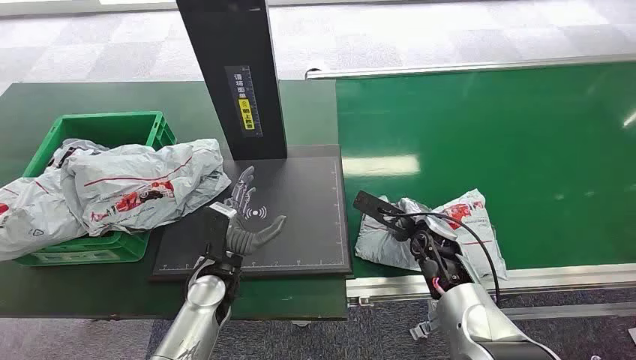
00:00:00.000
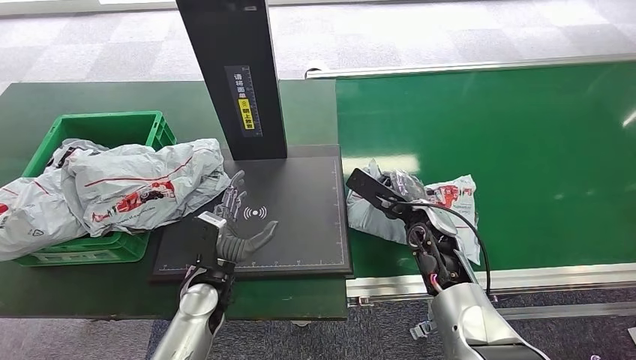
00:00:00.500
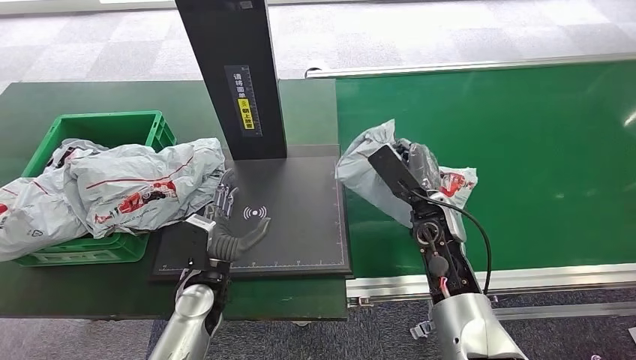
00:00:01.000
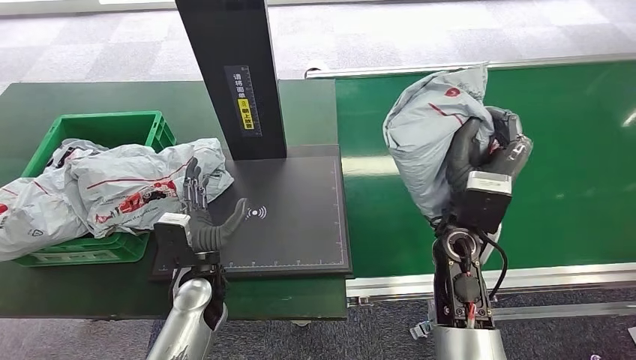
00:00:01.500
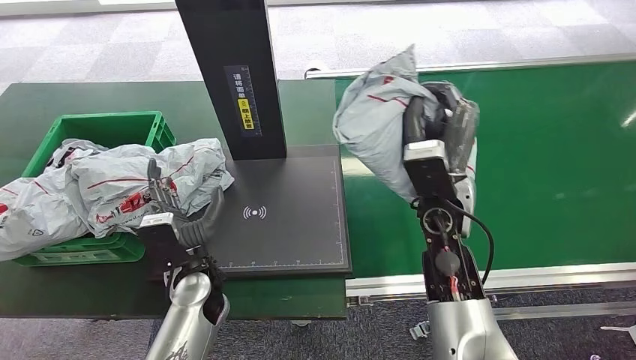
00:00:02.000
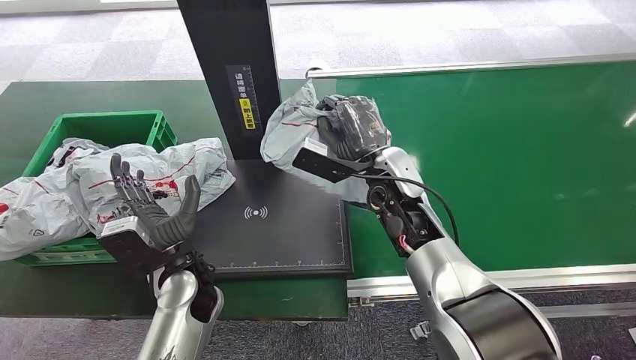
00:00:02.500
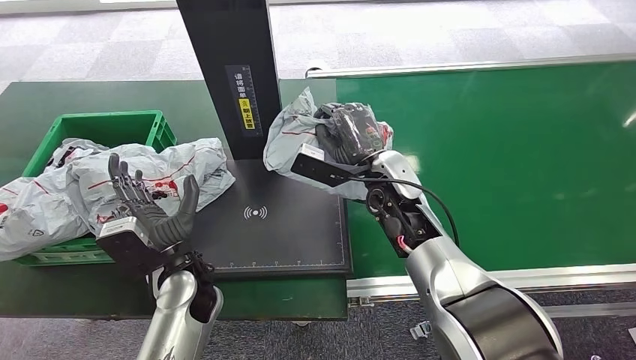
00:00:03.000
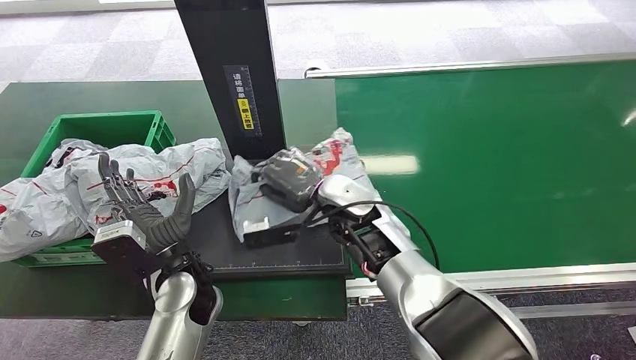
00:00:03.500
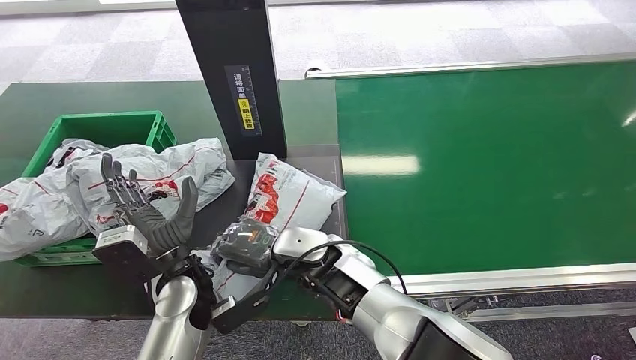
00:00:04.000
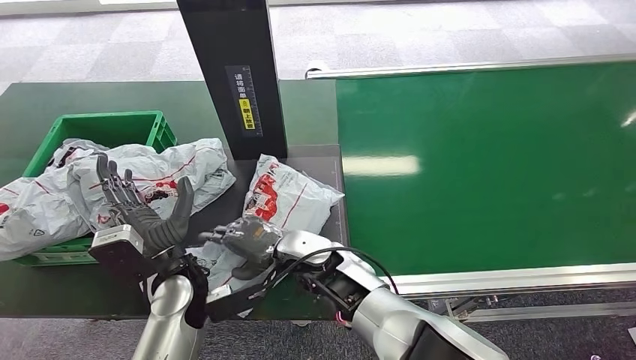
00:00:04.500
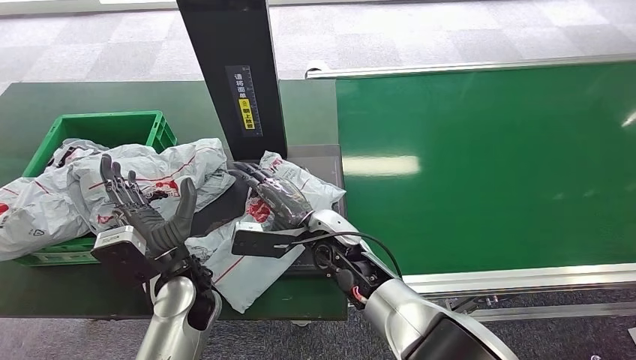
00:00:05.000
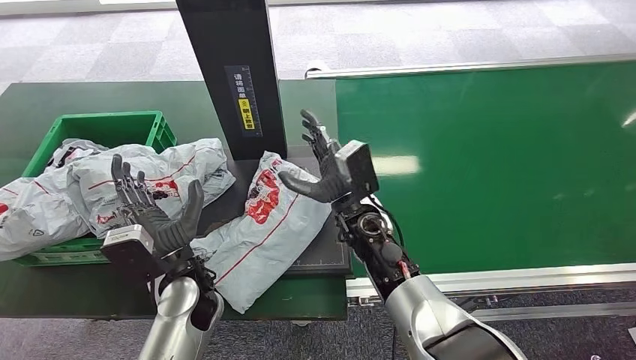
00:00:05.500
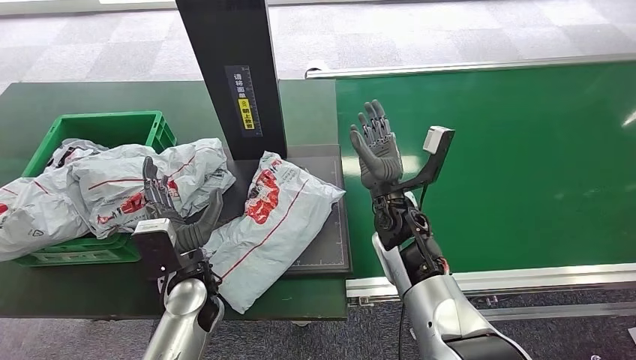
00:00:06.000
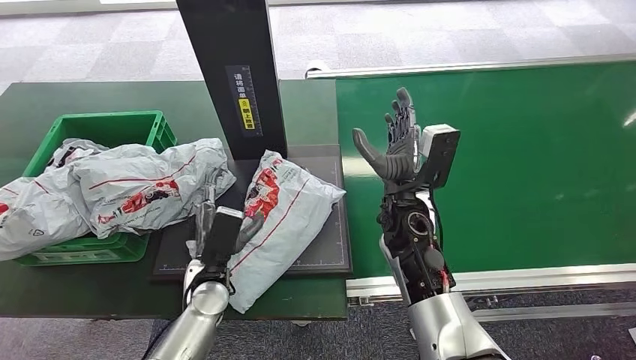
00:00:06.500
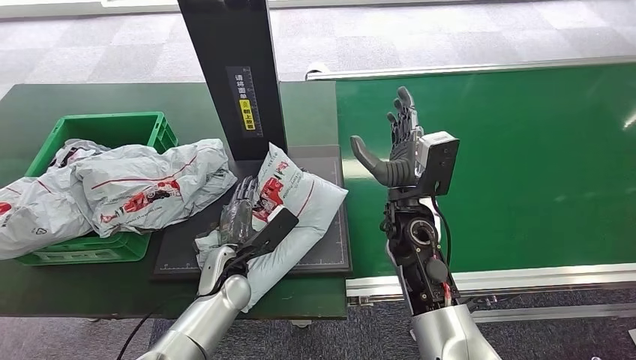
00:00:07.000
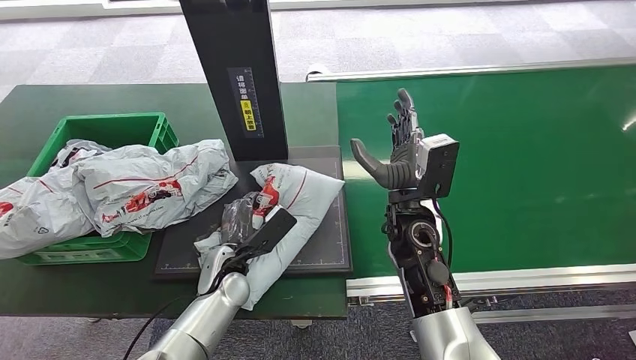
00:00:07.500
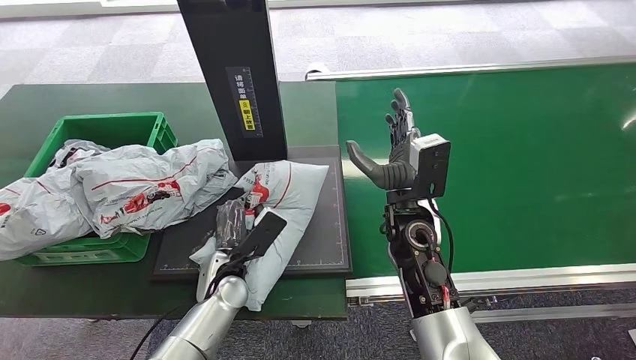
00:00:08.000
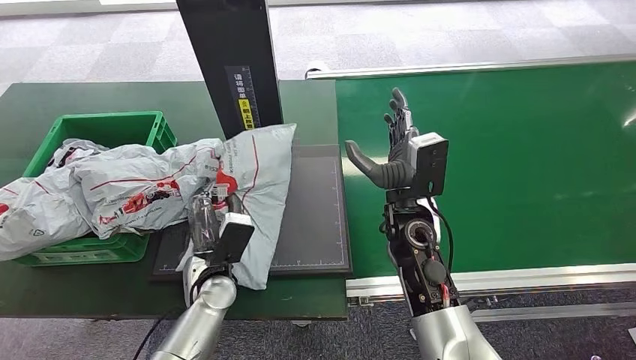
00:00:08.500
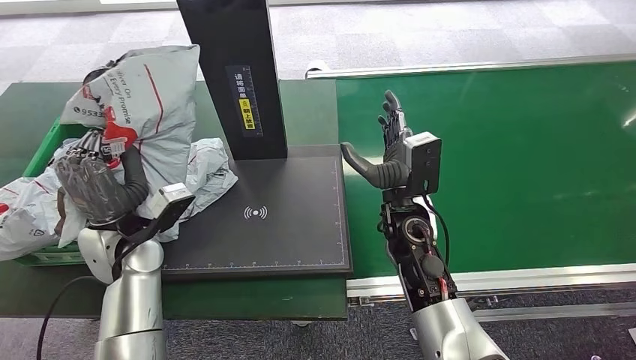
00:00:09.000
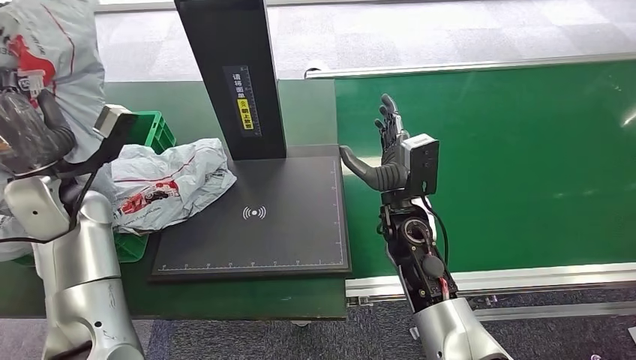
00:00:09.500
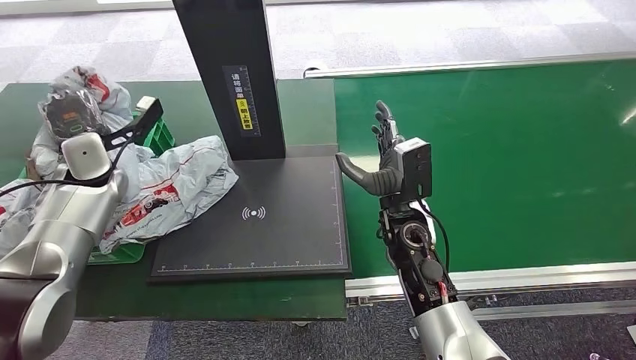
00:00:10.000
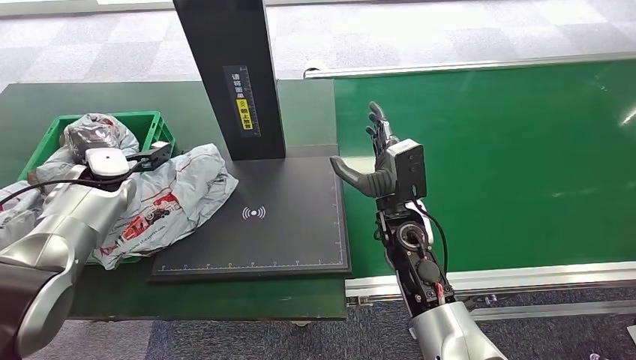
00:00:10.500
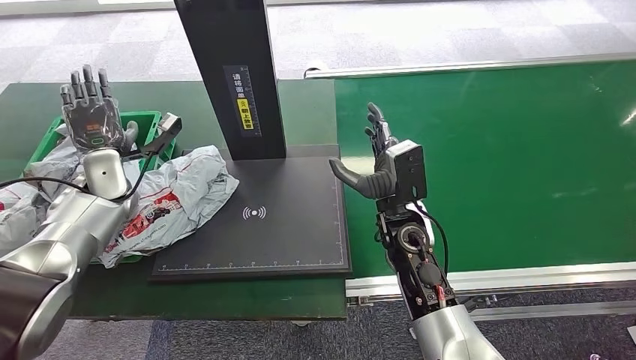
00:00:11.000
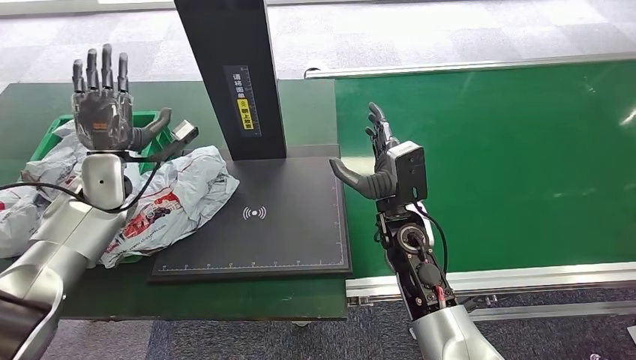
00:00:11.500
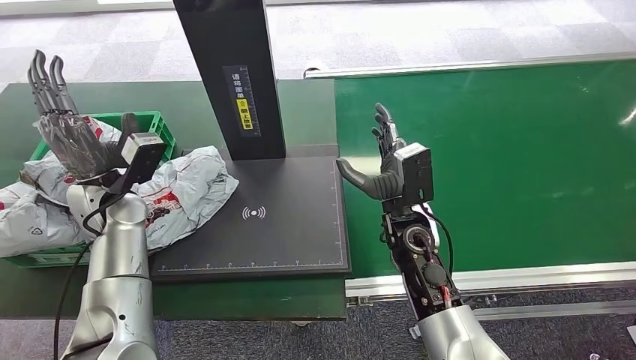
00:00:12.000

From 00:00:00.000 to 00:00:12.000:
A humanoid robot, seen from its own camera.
Step, from 00:00:00.000 to 00:00:01.500: Pick up the package from the conveyor belt.
Step, from 00:00:02.000 to 00:00:05.500: Place the package onto the inbound machine.
Step, from 00:00:06.000 to 00:00:09.000: Pick up the package from the inbound machine.
Step, from 00:00:09.500 to 00:00:12.000: Place the package into the parcel locker.
From 00:00:04.000 to 00:00:06.000: The right hand goes some 15 cm to the right and forward.
From 00:00:06.000 to 00:00:08.000: The left hand moves downward, about 5 cm.
From 00:00:10.000 to 00:00:12.000: The left hand moves to the right and backward, roughly 10 cm.

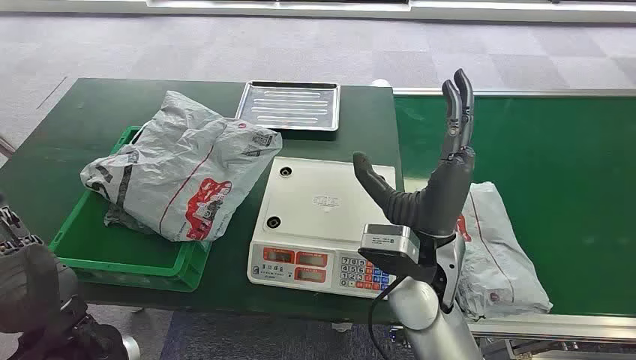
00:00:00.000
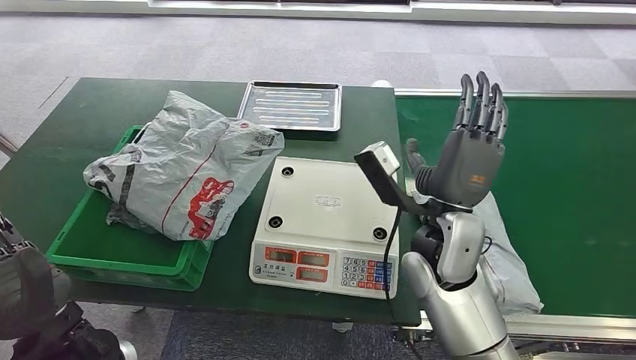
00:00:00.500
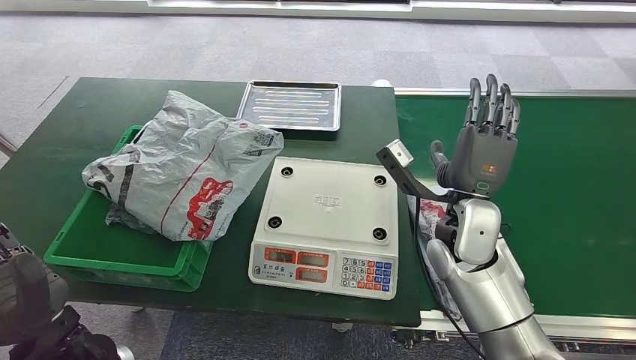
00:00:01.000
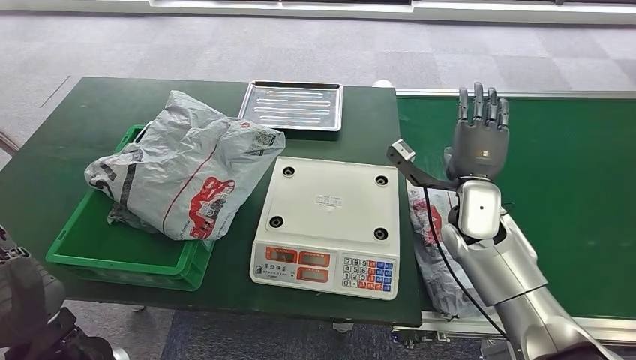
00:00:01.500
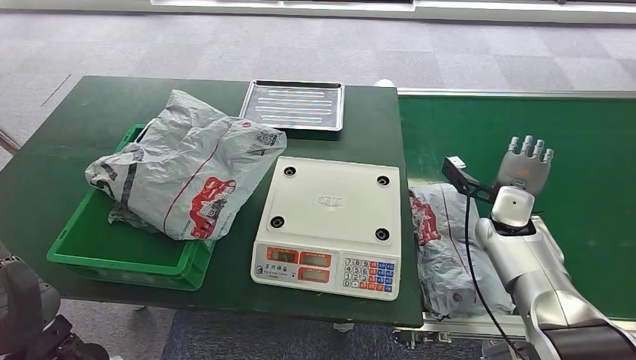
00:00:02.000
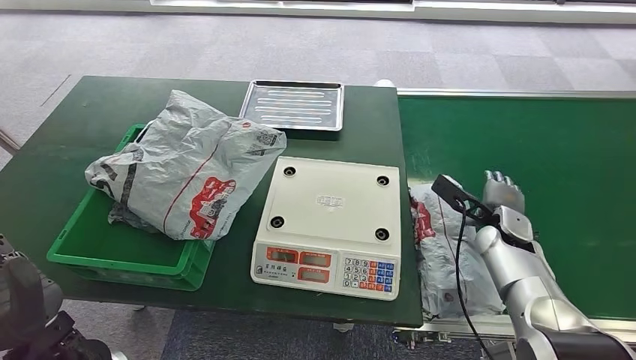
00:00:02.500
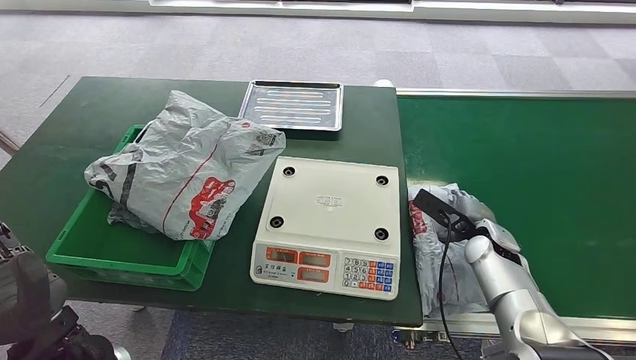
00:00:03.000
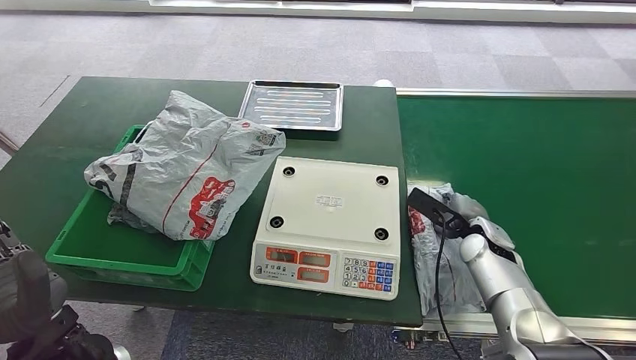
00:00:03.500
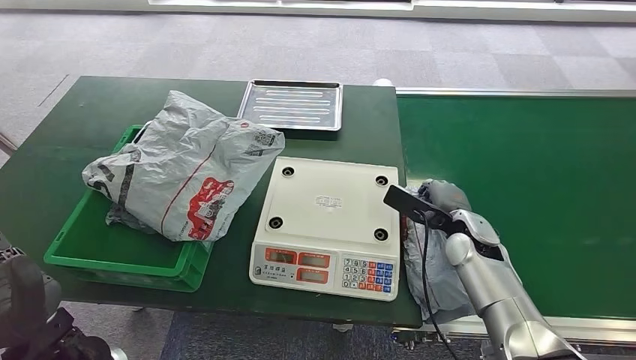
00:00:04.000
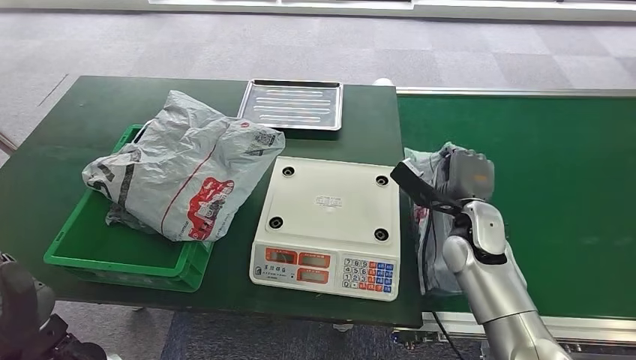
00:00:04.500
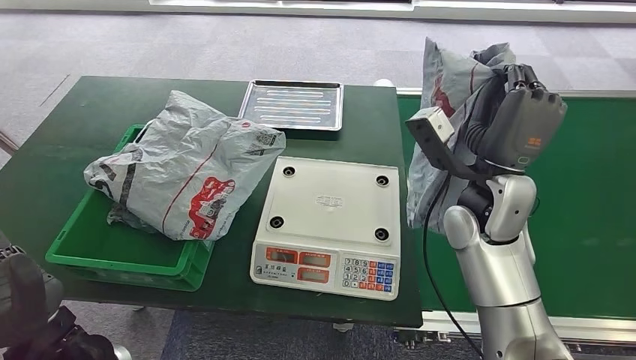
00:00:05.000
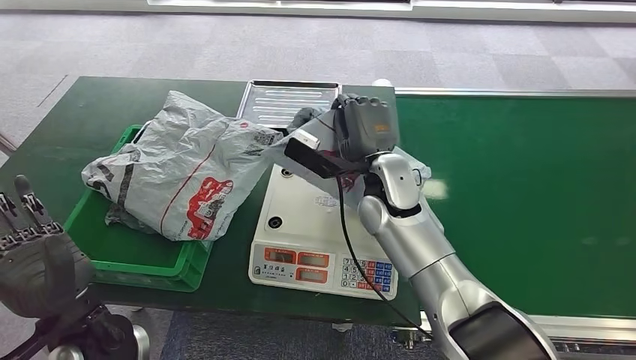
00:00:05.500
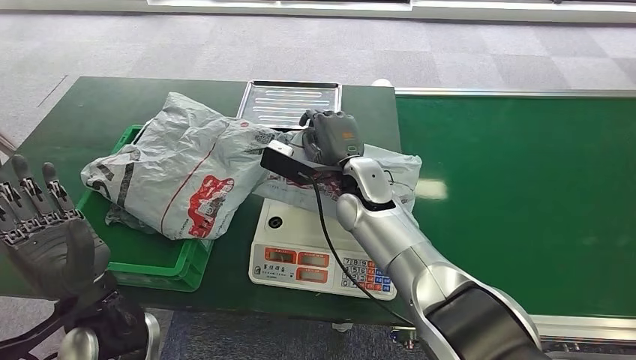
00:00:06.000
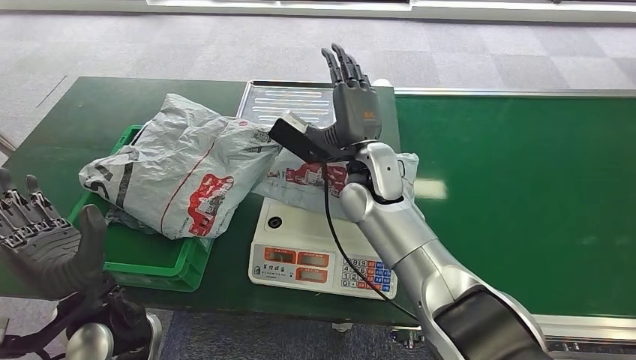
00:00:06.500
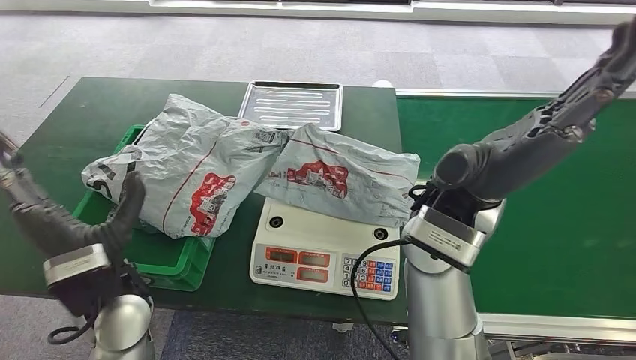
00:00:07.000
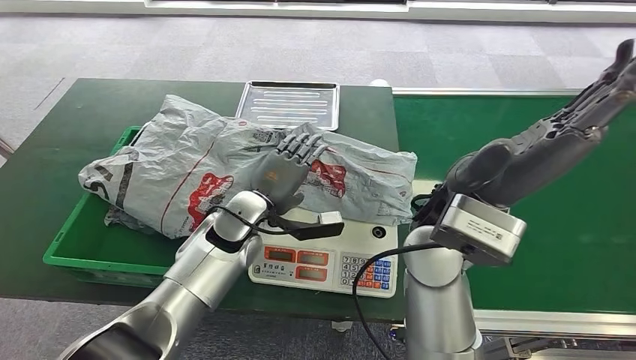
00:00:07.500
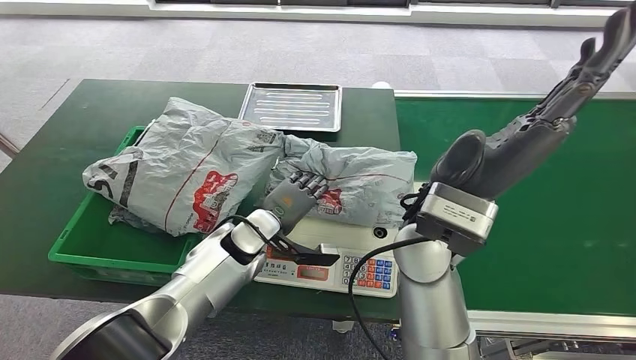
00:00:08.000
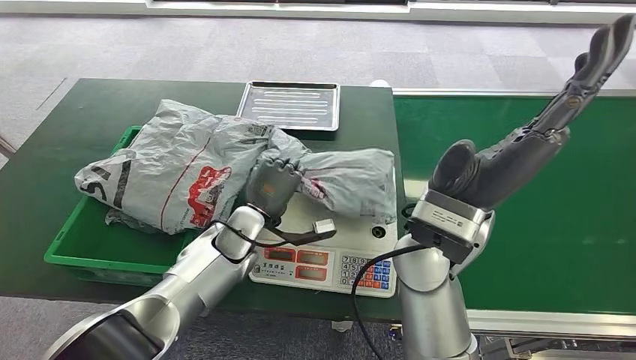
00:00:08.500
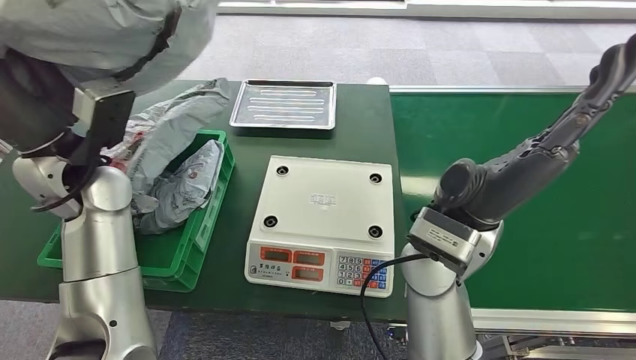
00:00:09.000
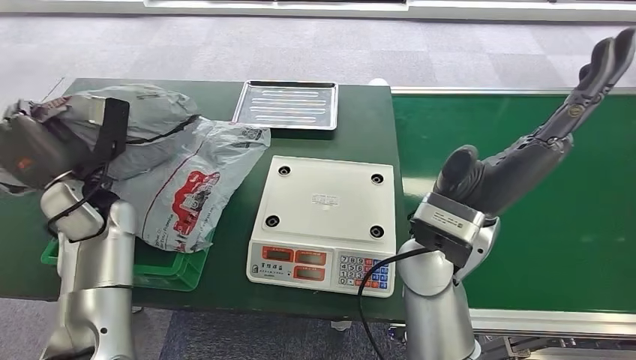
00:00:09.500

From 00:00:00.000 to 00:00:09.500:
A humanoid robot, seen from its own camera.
Step, from 00:00:00.000 to 00:00:04.500: Pick up the package from the conveyor belt.
Step, from 00:00:05.000 to 00:00:06.500: Place the package onto the inbound machine.
Step, from 00:00:07.500 to 00:00:09.000: Pick up the package from the inbound machine.
From 00:00:02.000 to 00:00:04.000: The right hand is displaced to the left by roughly 5 cm.
From 00:00:04.000 to 00:00:05.500: The right hand is displaced to the left and upward by roughly 20 cm.
